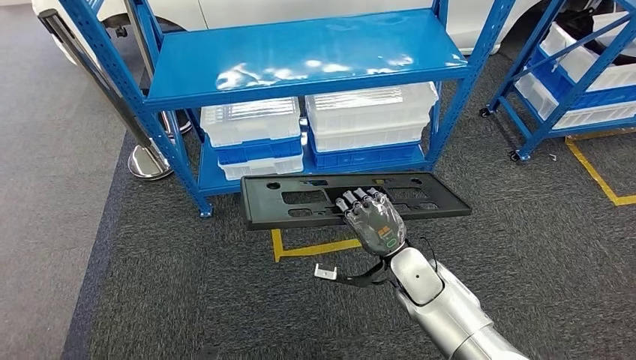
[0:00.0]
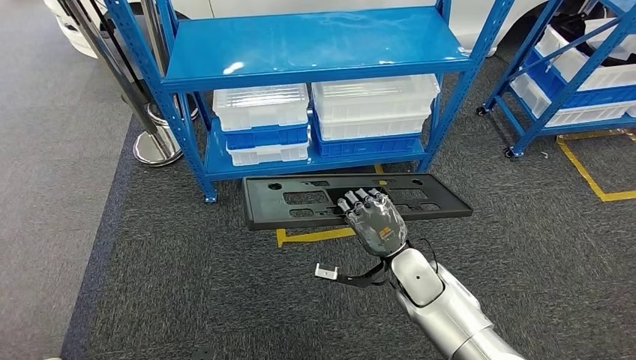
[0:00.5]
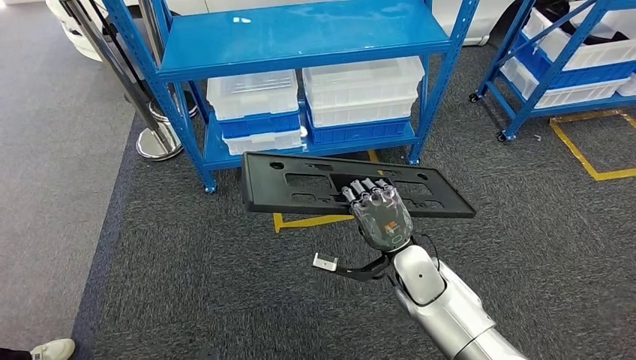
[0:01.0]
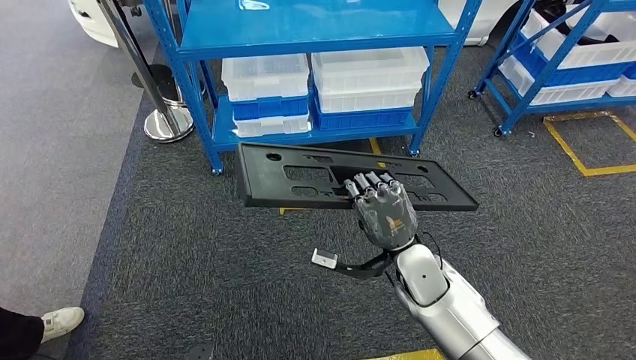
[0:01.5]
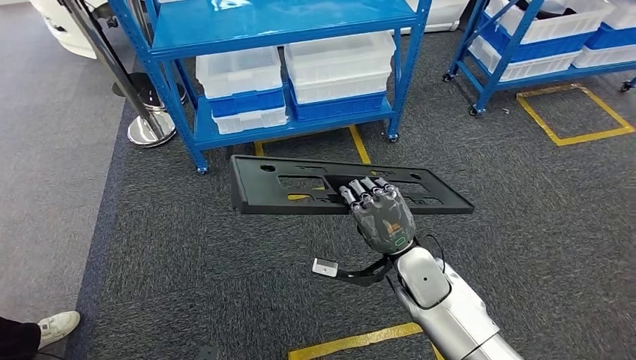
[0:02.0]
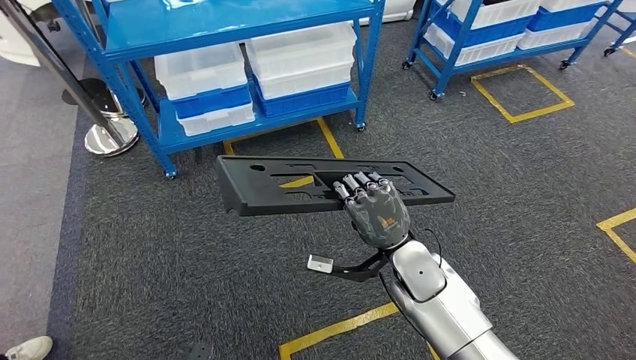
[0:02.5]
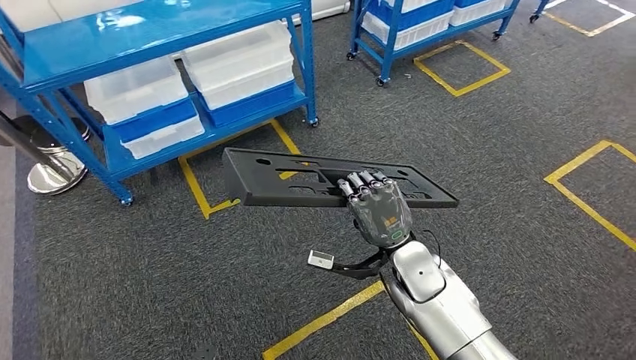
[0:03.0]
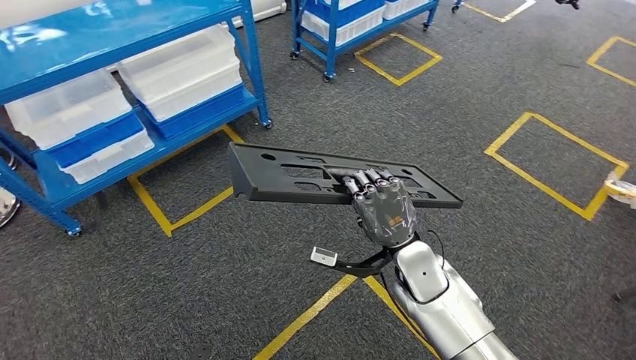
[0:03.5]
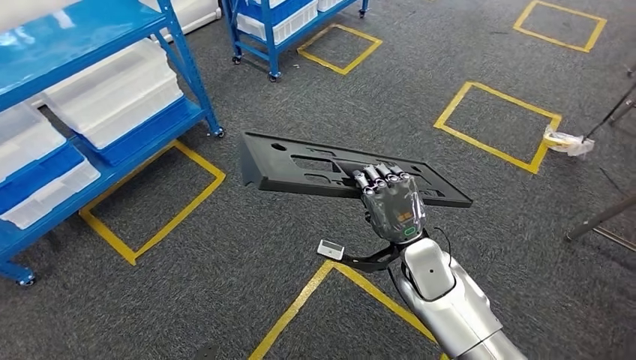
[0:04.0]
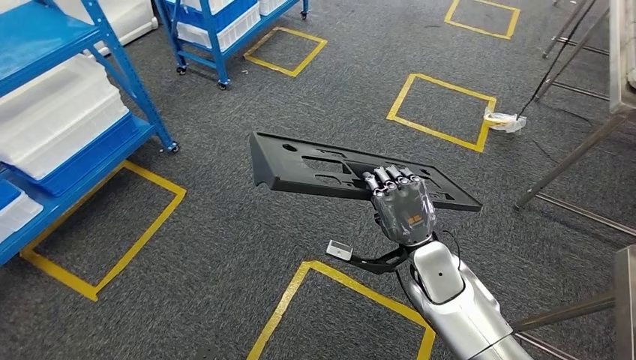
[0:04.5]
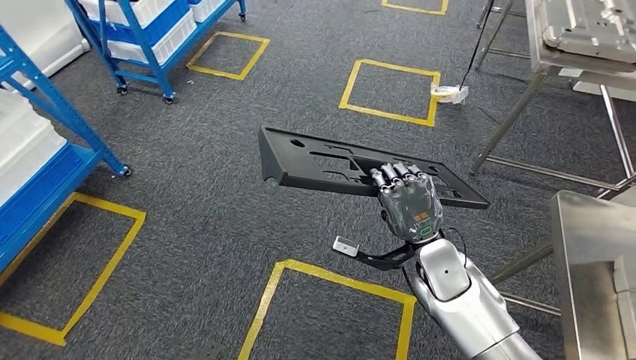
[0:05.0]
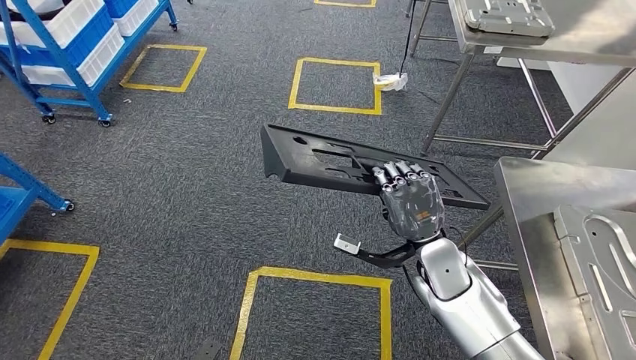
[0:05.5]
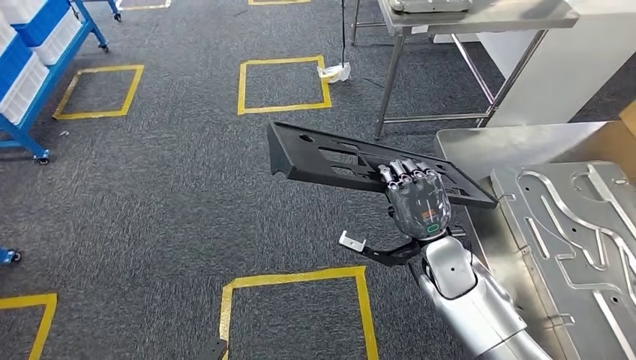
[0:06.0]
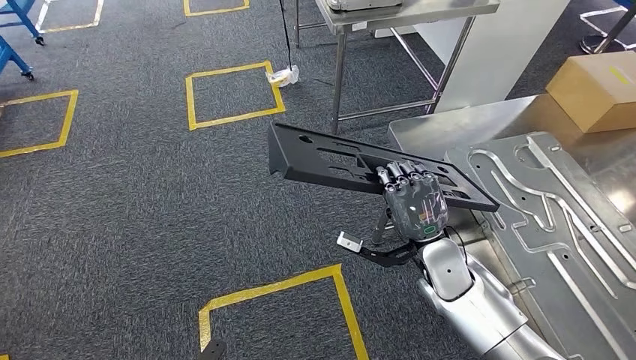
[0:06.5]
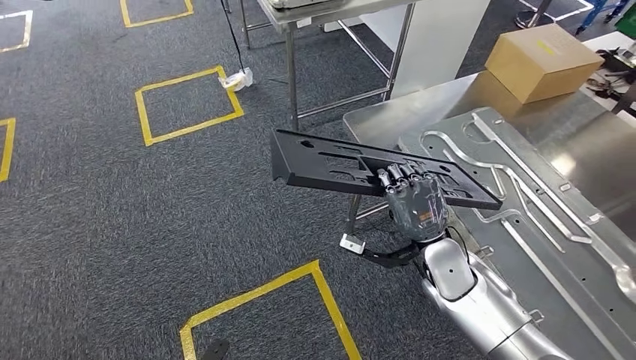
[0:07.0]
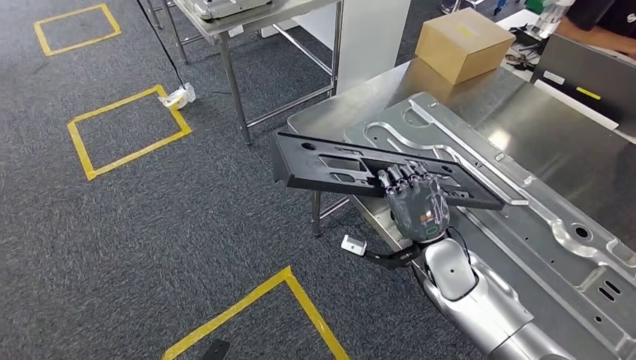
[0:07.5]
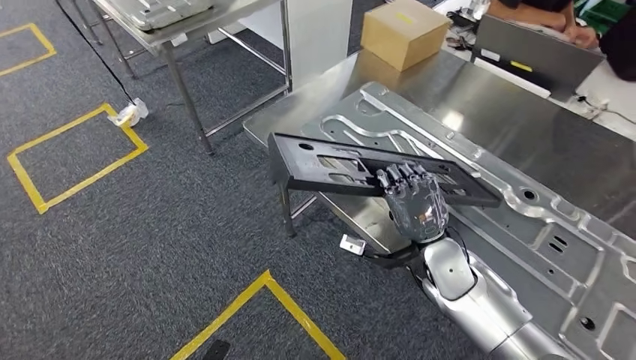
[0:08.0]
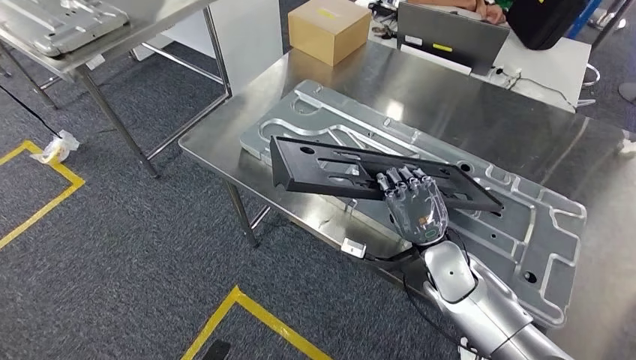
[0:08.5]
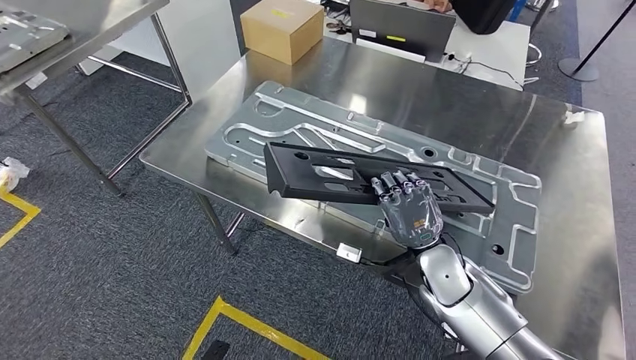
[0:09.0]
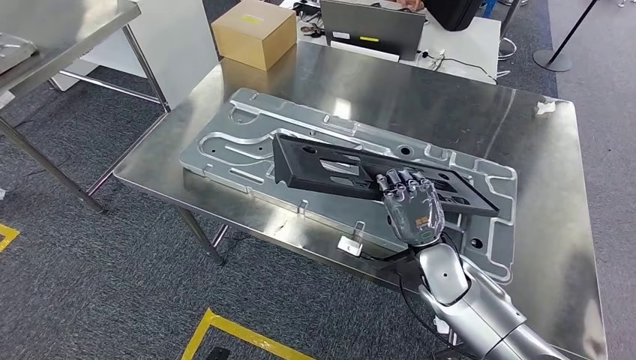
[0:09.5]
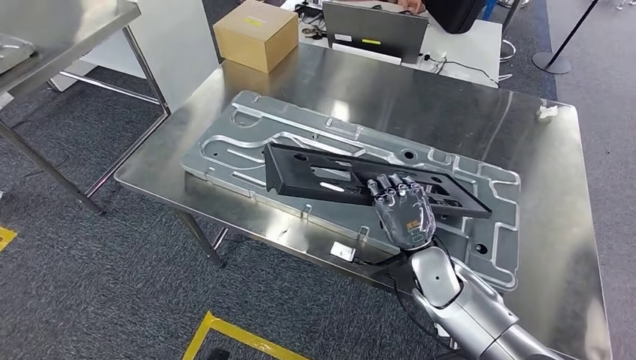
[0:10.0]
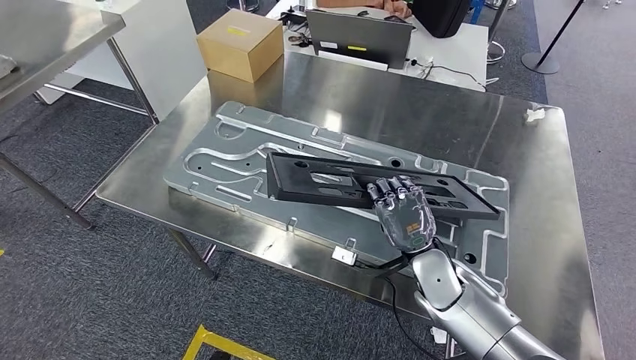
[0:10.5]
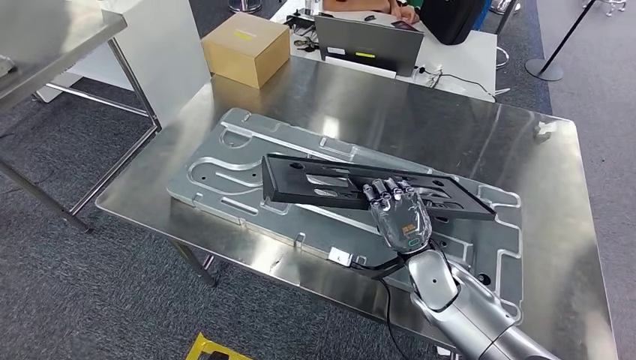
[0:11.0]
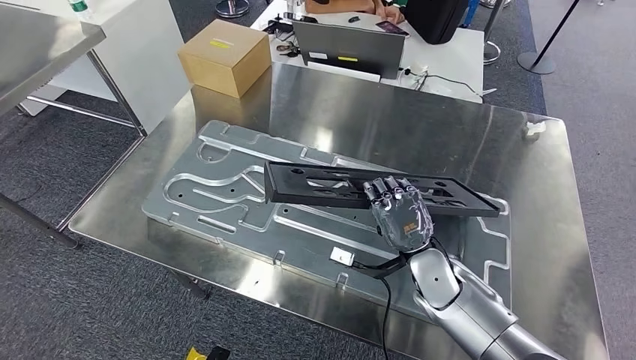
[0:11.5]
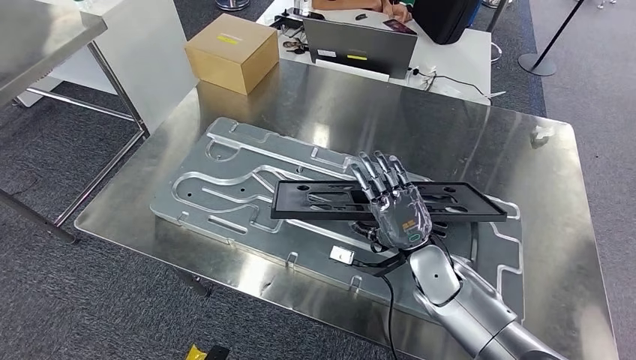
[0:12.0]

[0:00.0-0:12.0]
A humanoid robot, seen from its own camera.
Step, 0:00.0 to 0:06.5: Move the large material to the workbench.

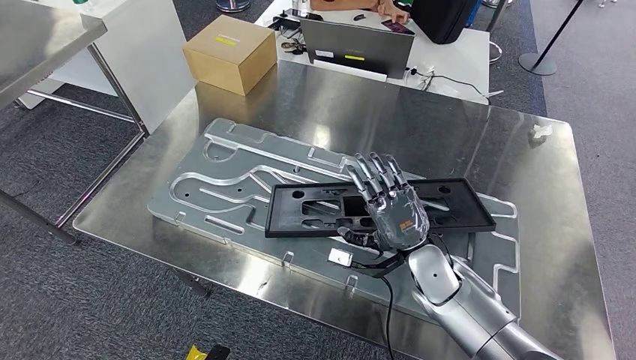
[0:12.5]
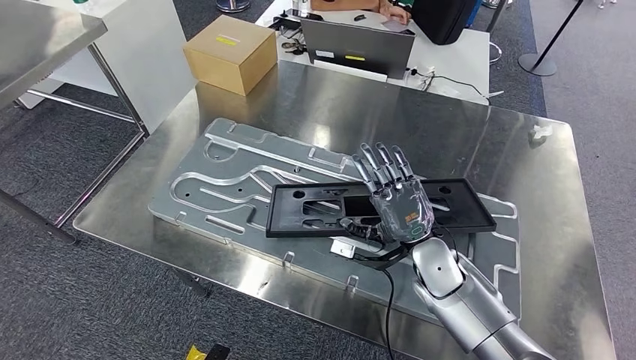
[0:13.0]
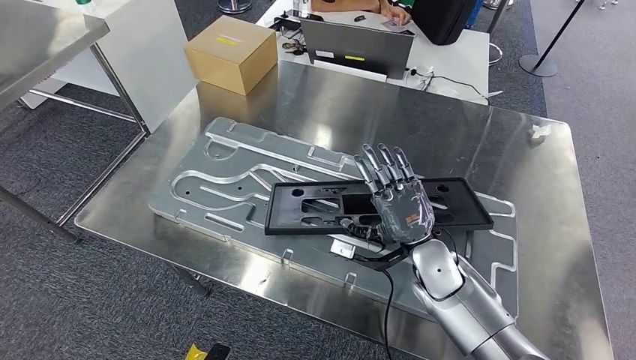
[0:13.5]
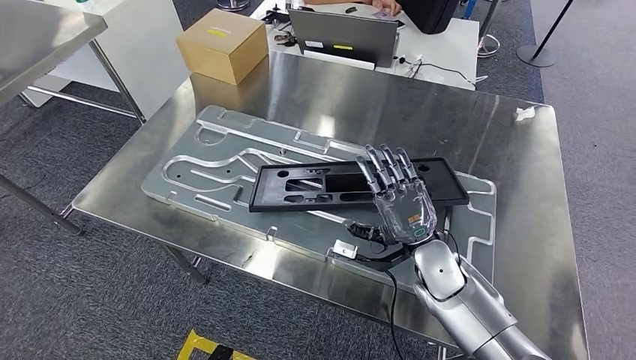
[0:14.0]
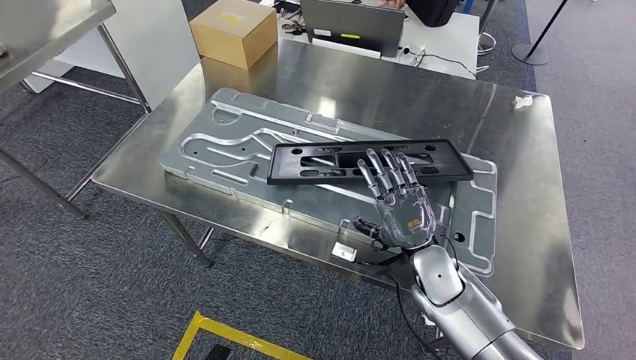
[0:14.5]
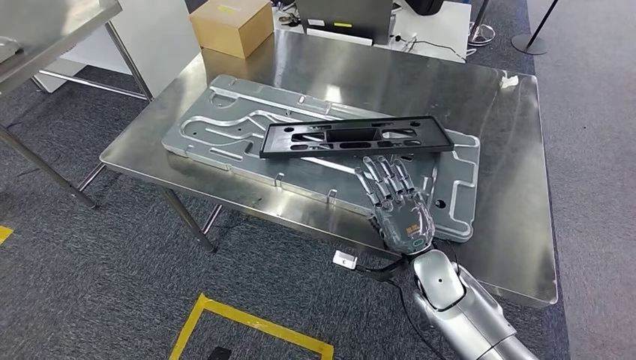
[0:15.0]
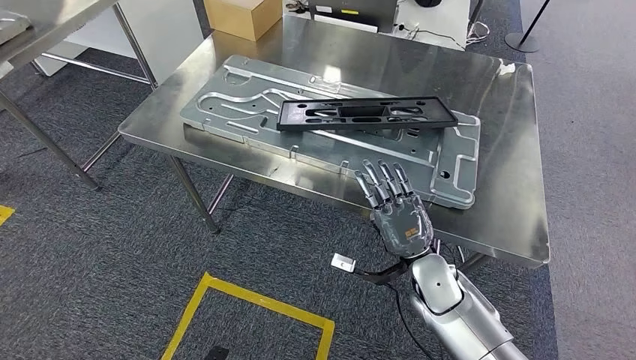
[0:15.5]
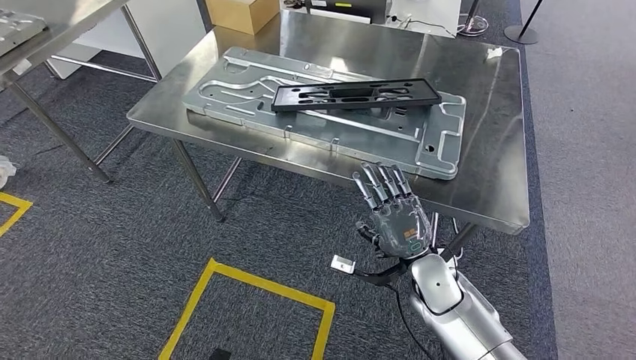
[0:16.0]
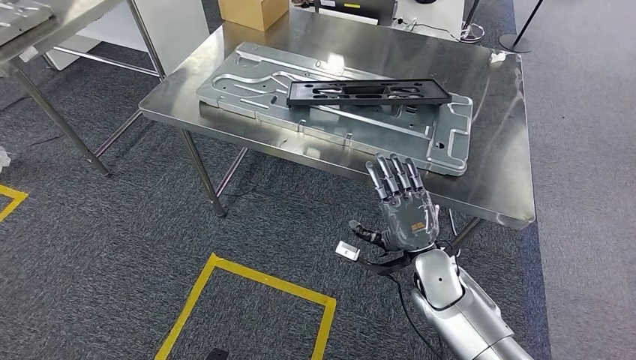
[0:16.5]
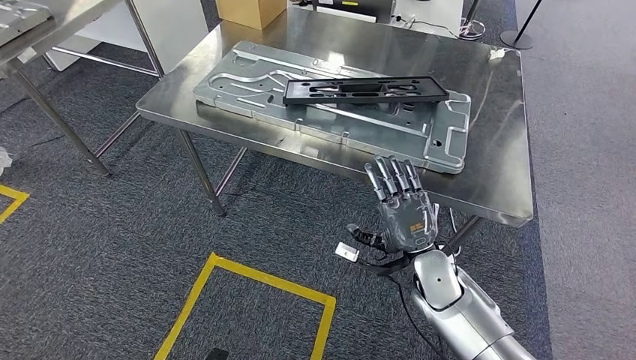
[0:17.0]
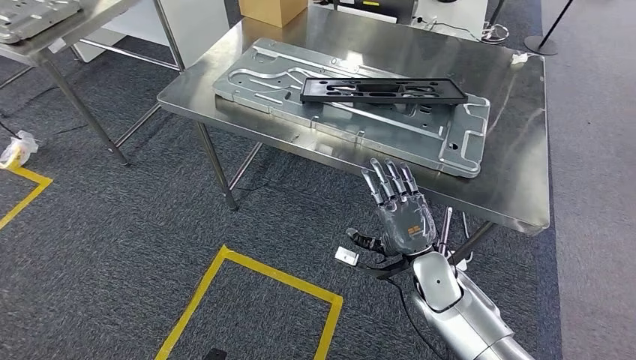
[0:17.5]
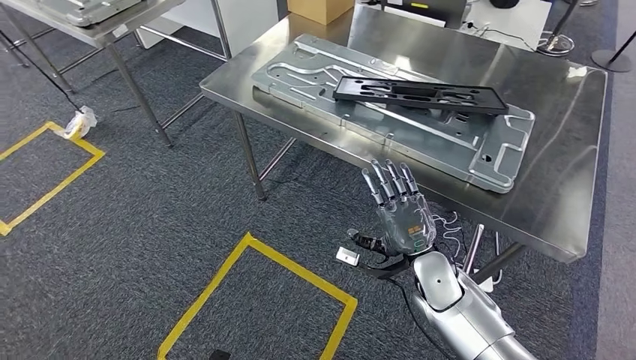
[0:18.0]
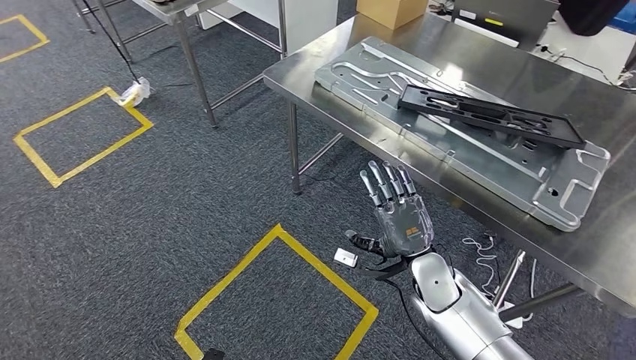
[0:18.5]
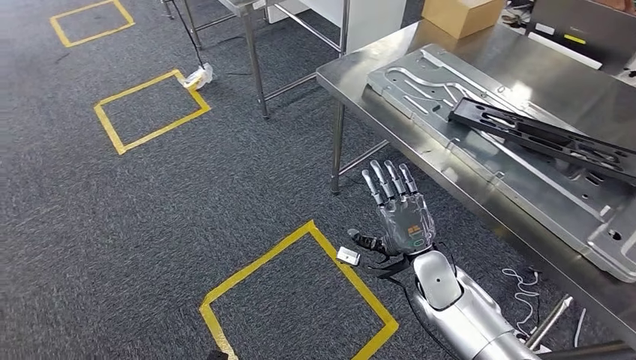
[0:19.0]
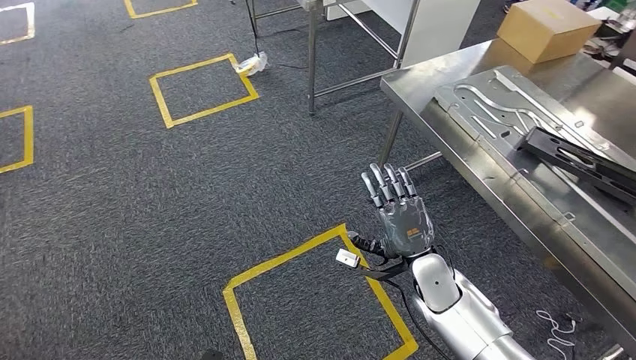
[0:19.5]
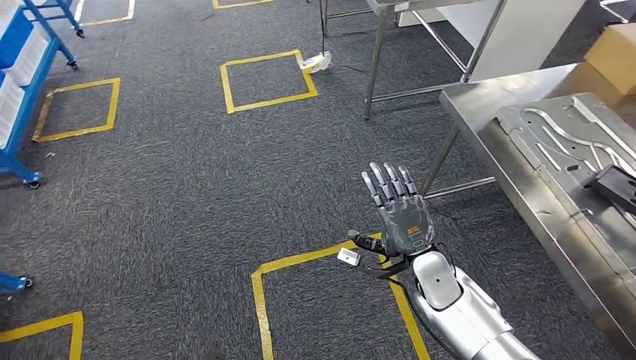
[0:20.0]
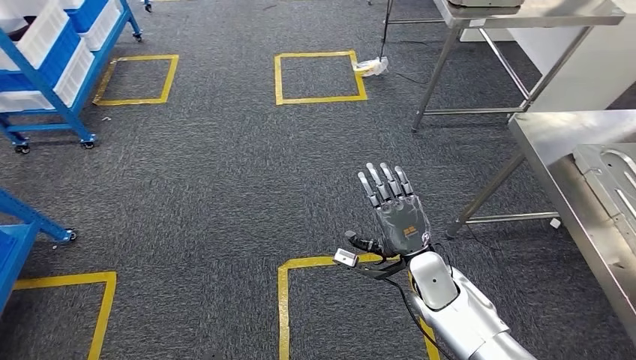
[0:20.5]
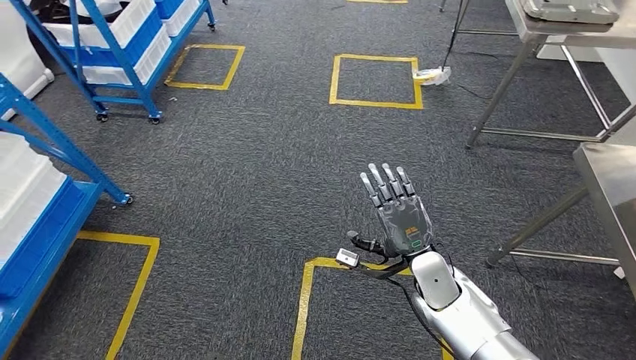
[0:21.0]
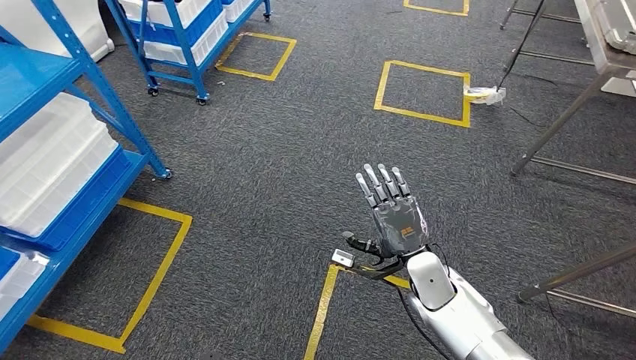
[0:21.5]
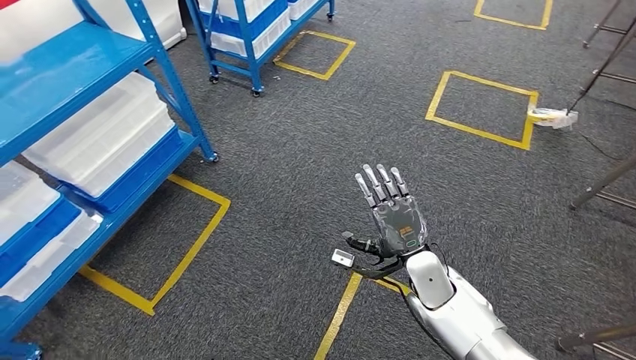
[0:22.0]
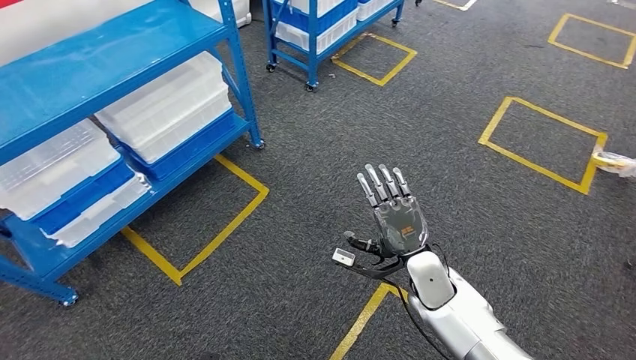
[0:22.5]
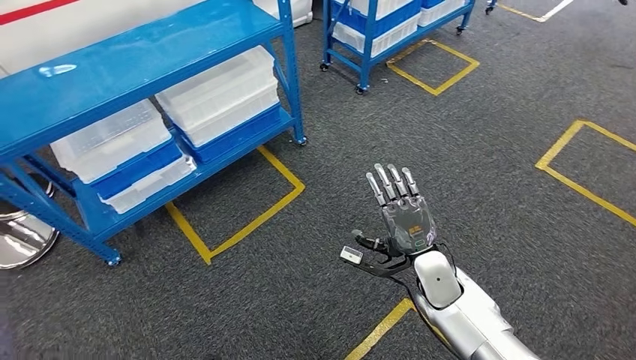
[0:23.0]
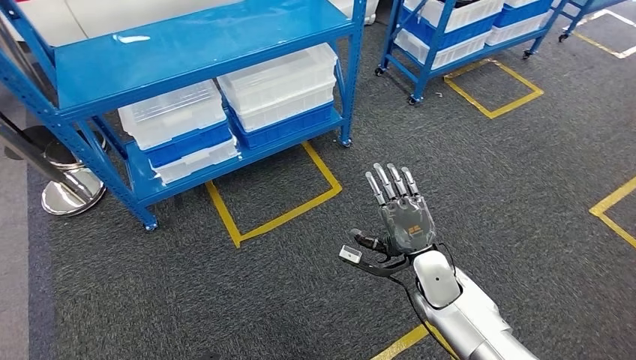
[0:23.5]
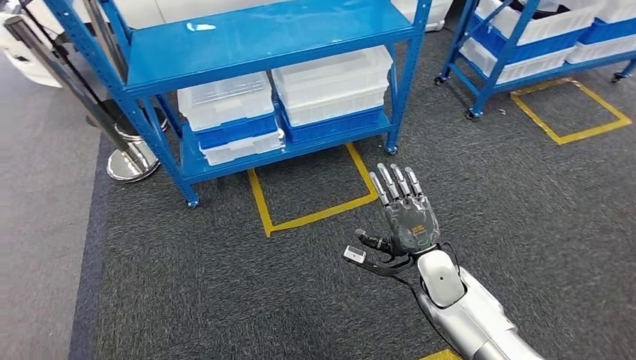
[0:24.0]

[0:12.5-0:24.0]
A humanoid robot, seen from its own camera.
Step, 0:12.5 to 0:15.0: Insert the large material into the corresponding slot on the workbench.
